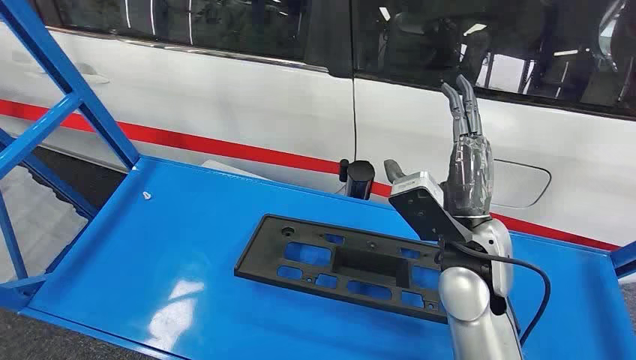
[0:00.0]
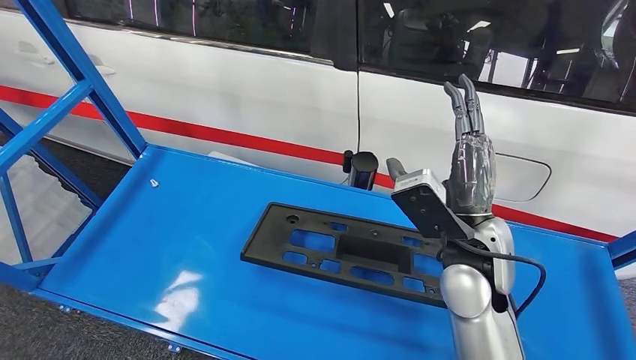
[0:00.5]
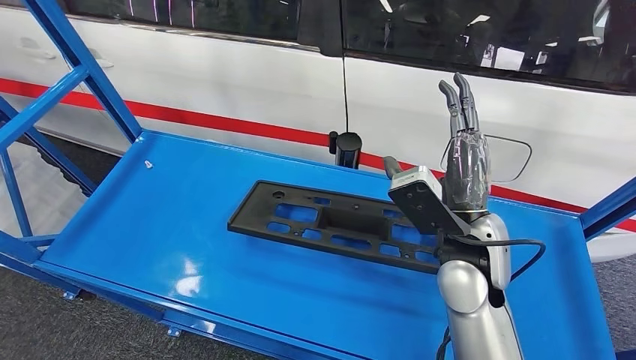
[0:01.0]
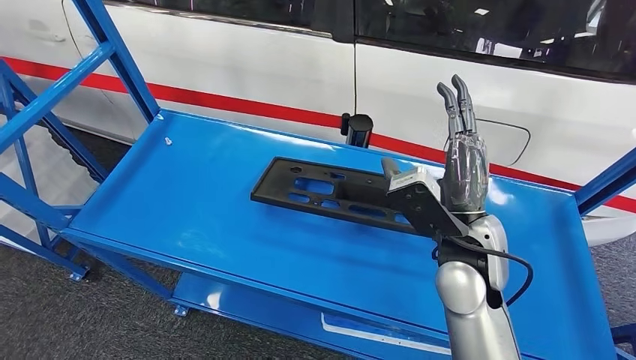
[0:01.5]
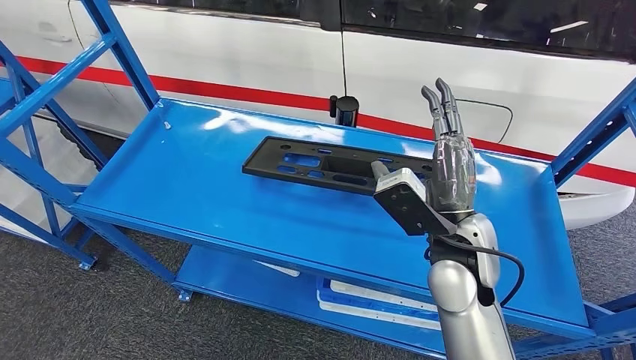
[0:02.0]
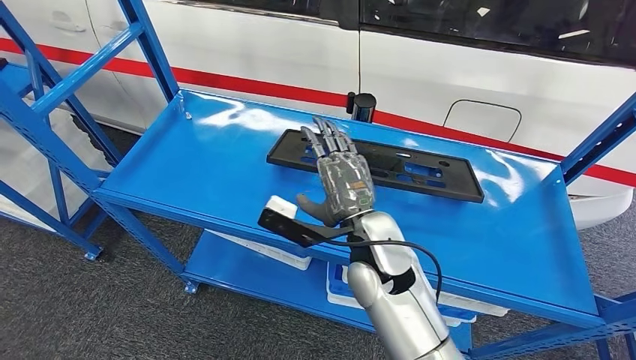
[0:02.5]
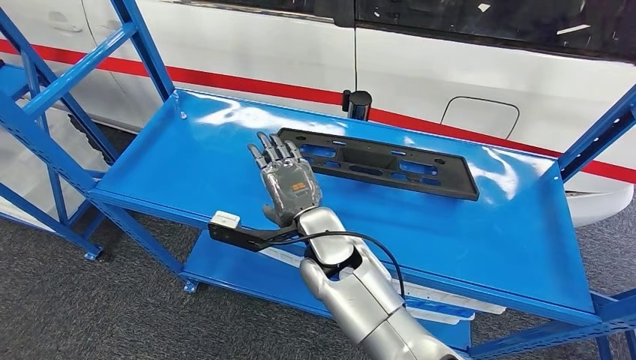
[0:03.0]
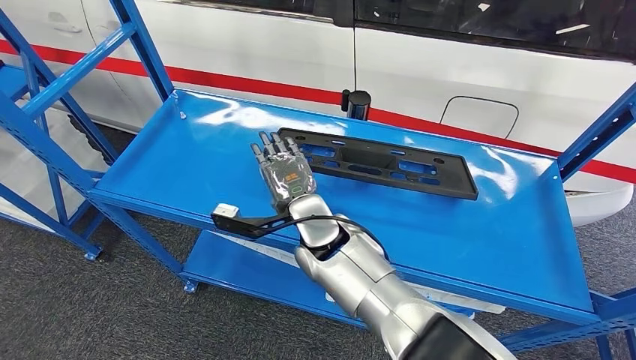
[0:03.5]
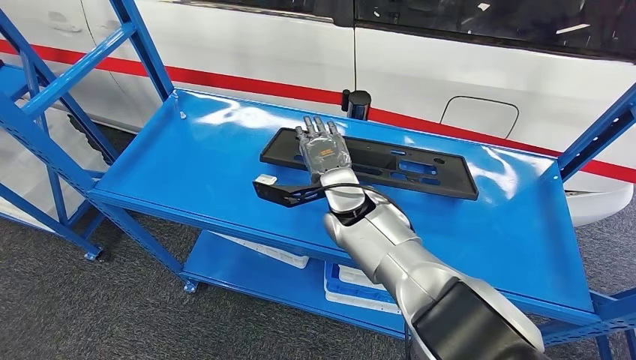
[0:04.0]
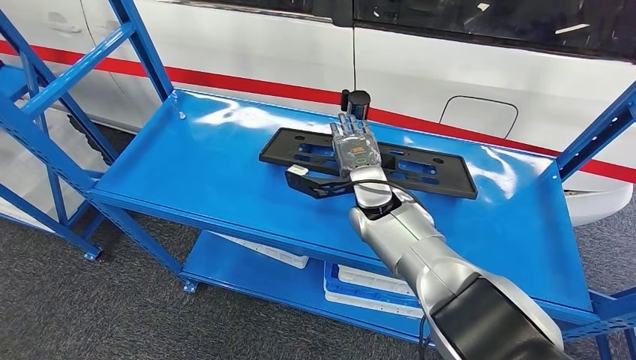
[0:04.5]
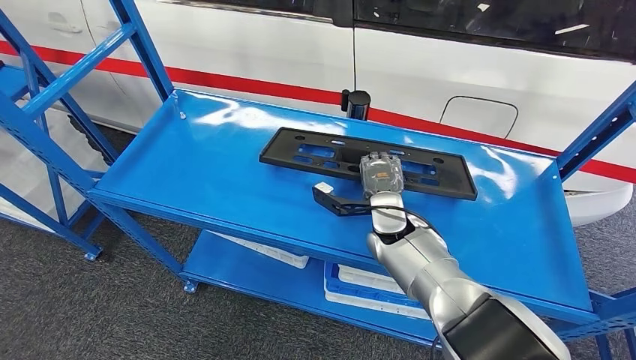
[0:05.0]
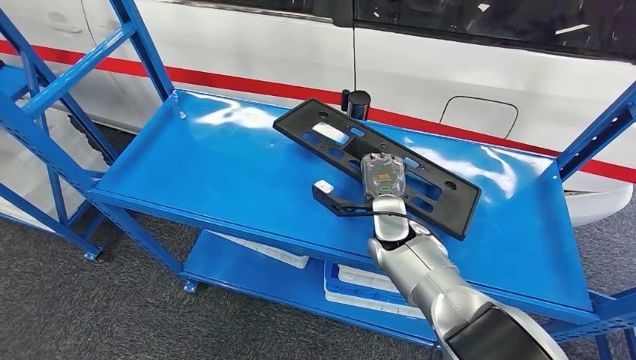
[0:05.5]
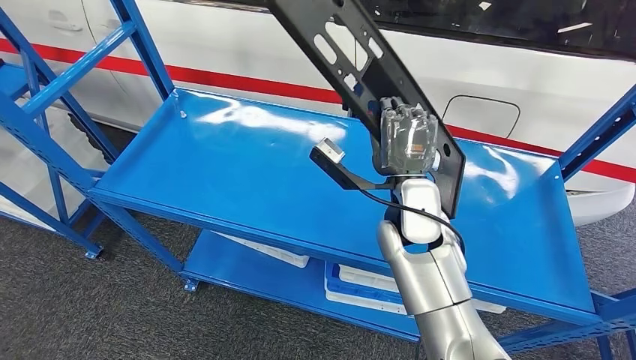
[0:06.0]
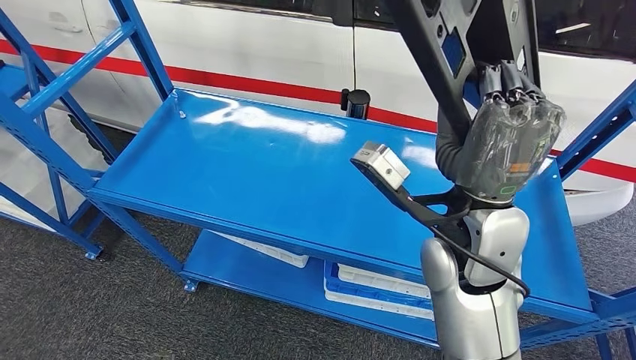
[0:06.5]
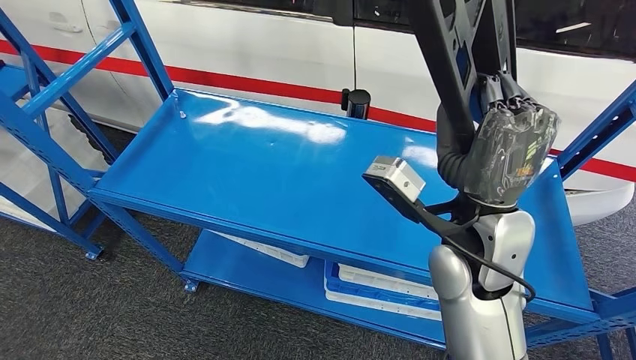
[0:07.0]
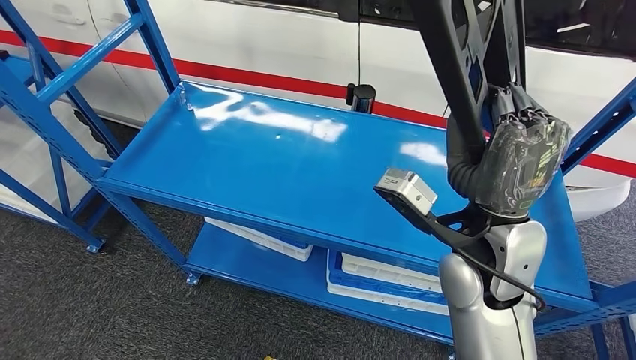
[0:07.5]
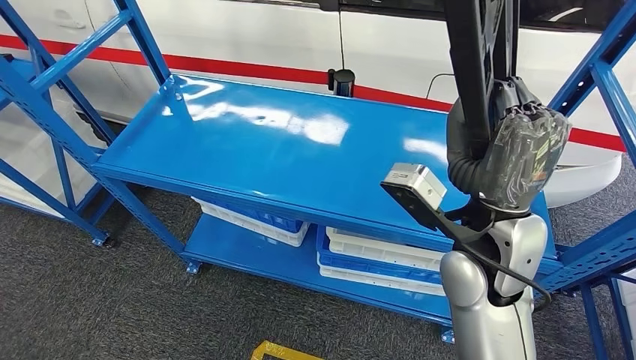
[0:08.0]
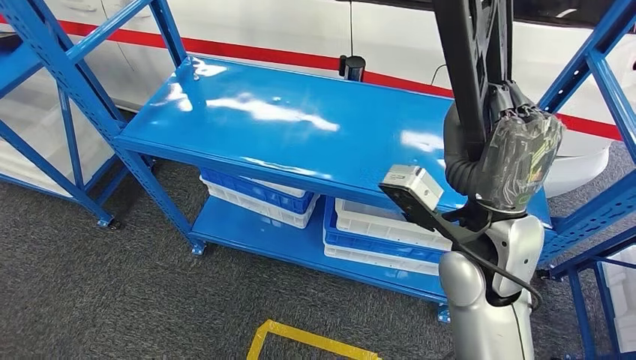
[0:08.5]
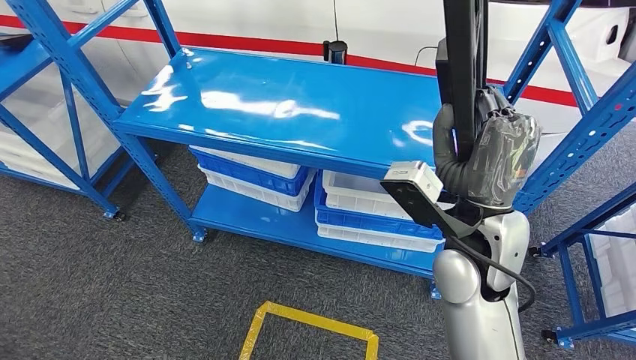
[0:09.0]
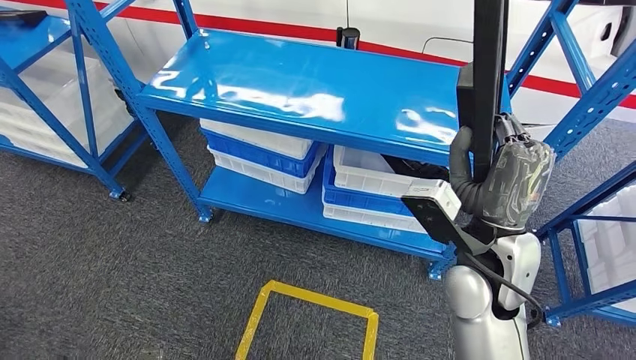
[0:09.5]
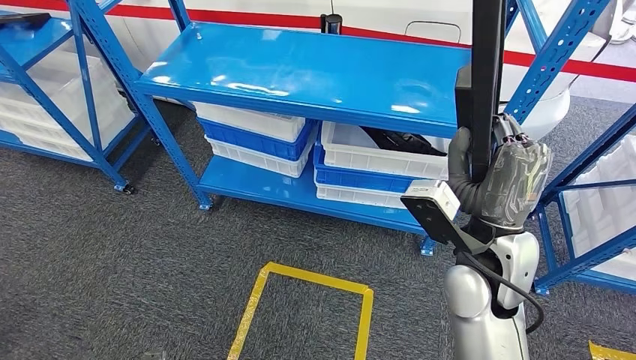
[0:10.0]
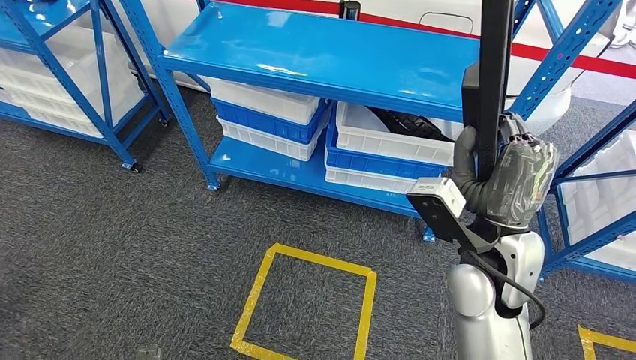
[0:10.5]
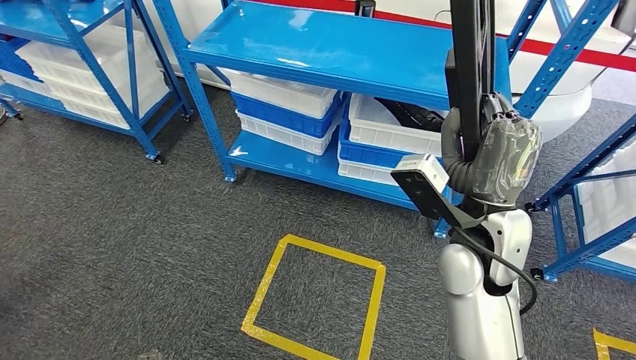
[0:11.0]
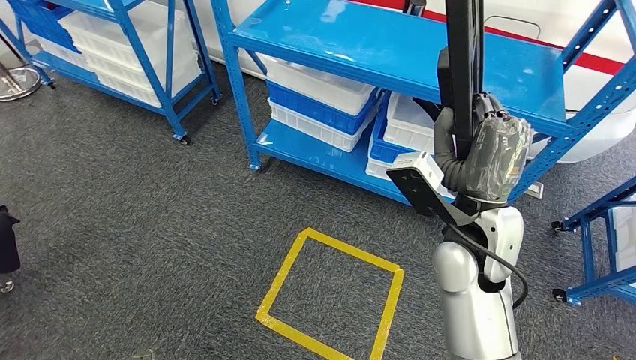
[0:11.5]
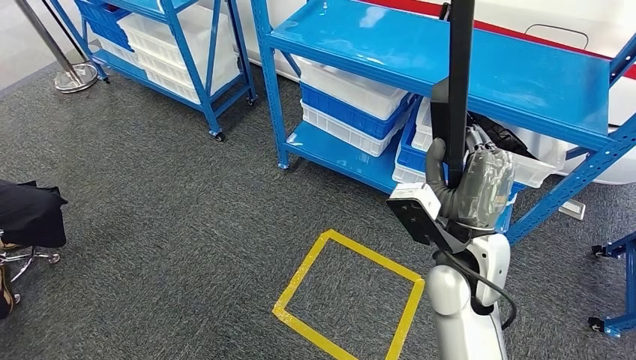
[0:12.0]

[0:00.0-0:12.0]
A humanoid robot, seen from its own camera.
Step, 0:00.0 to 0:08.0: Pick up the large parts from the shelf.

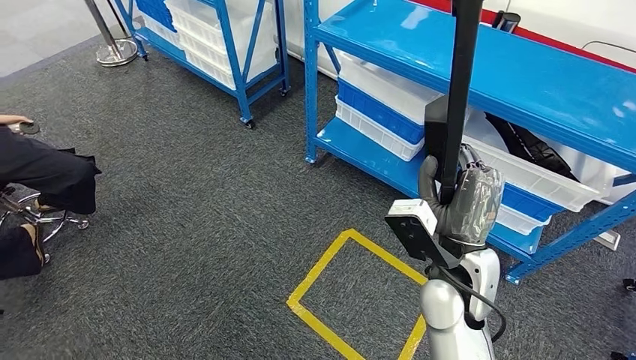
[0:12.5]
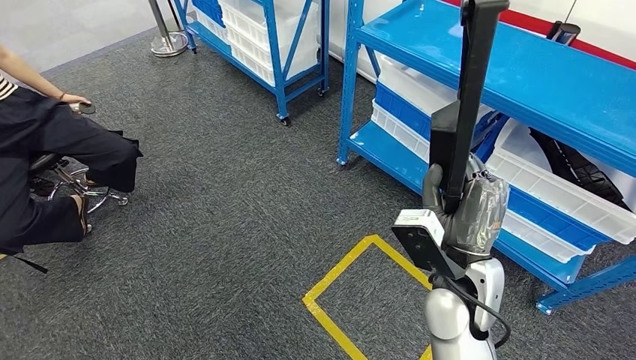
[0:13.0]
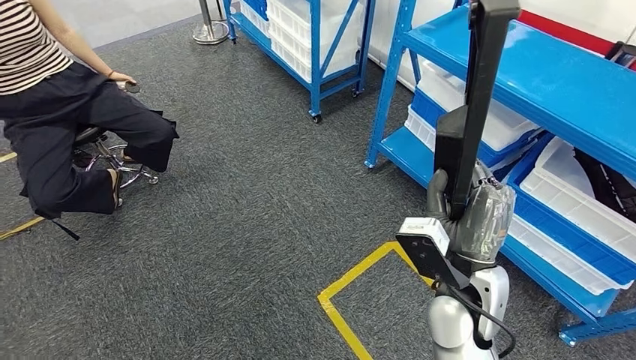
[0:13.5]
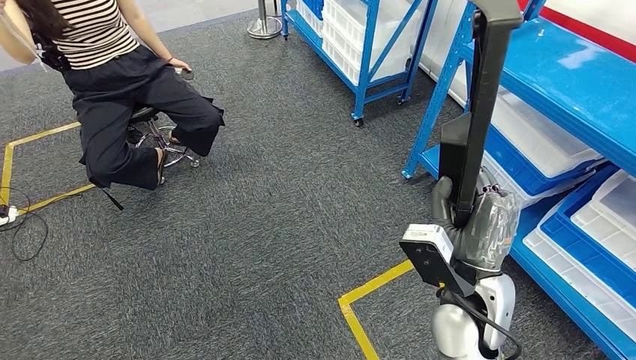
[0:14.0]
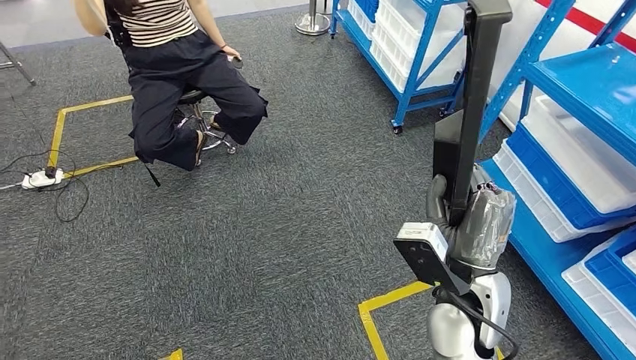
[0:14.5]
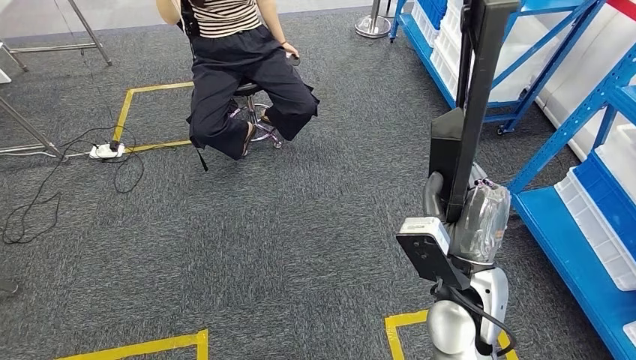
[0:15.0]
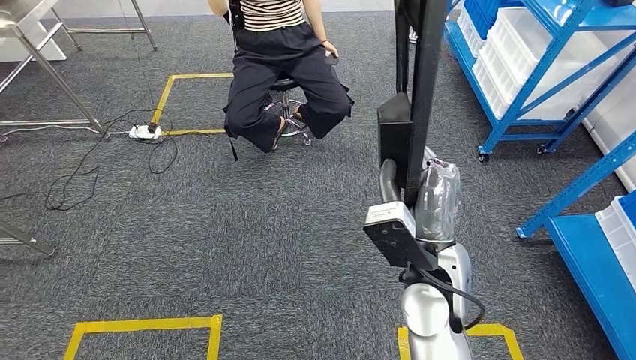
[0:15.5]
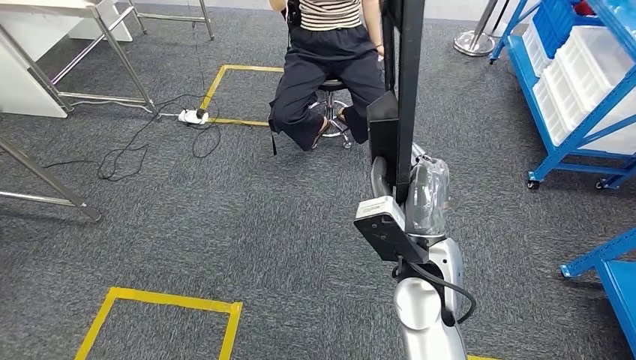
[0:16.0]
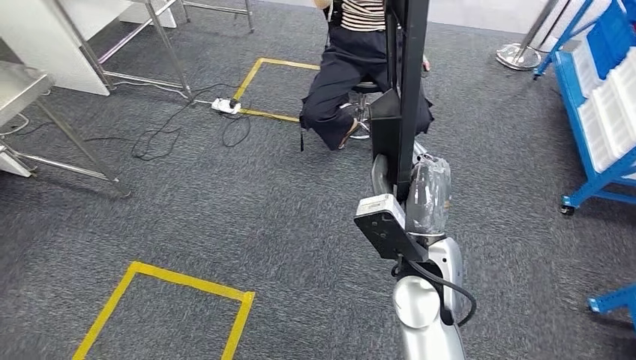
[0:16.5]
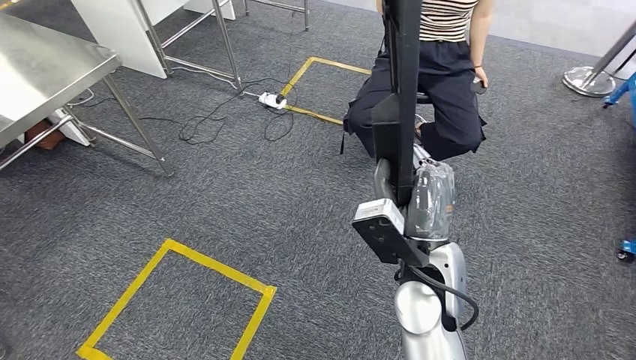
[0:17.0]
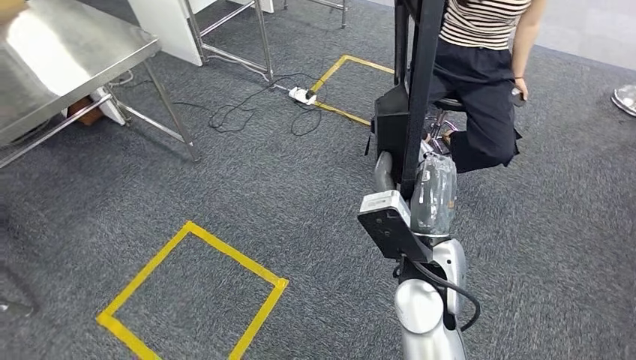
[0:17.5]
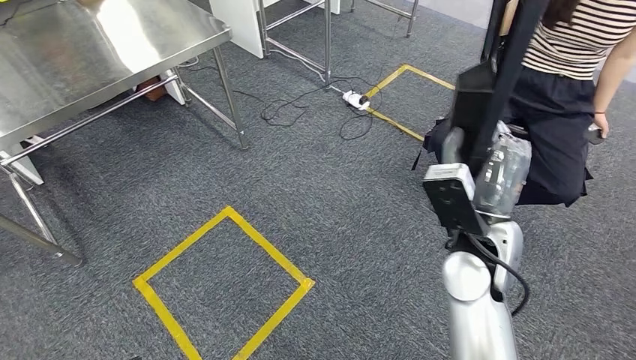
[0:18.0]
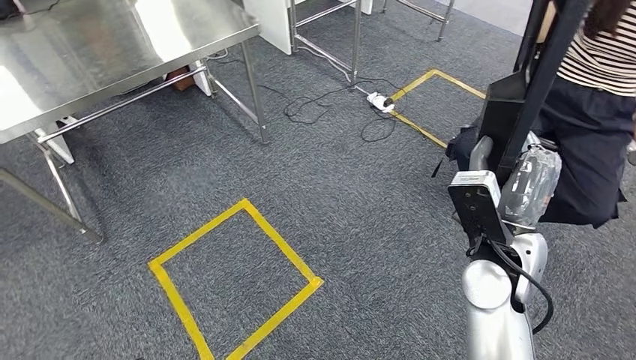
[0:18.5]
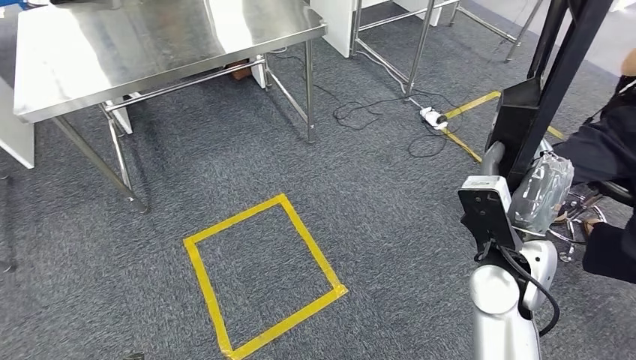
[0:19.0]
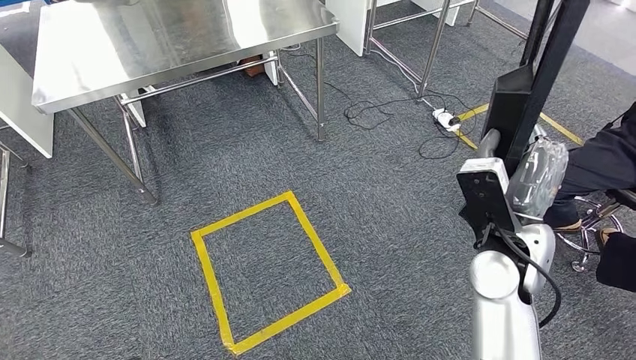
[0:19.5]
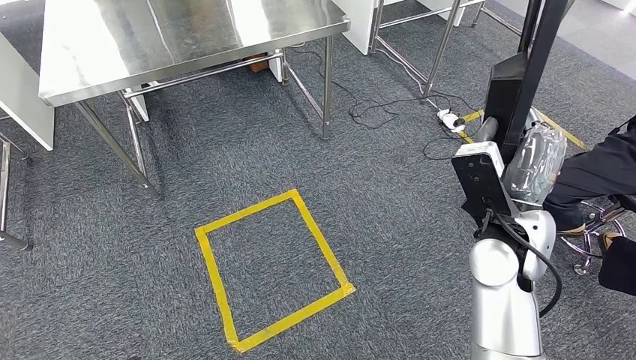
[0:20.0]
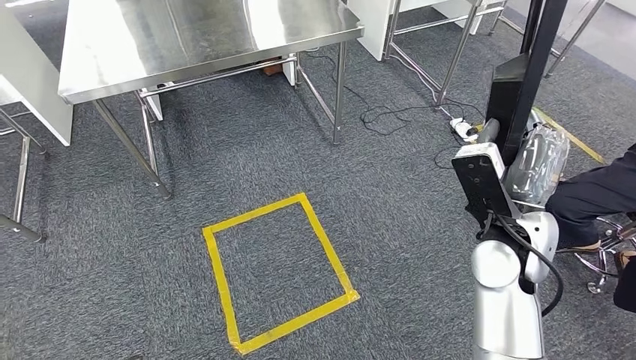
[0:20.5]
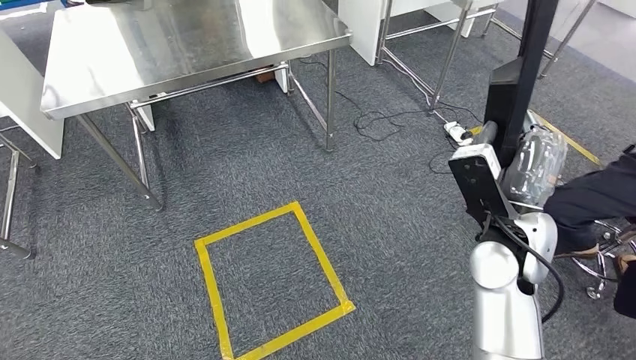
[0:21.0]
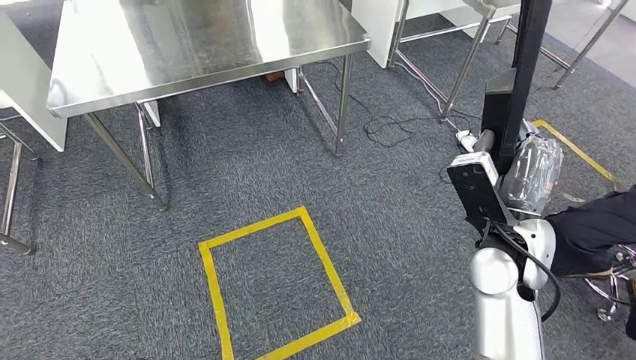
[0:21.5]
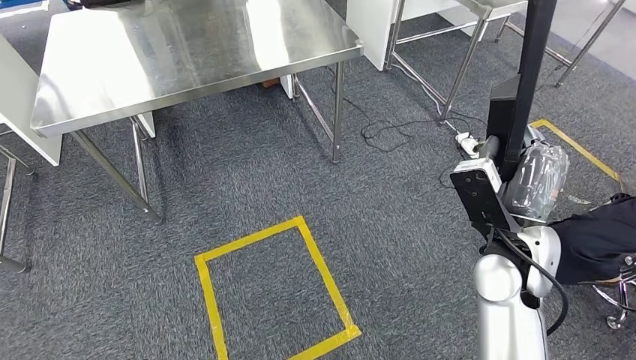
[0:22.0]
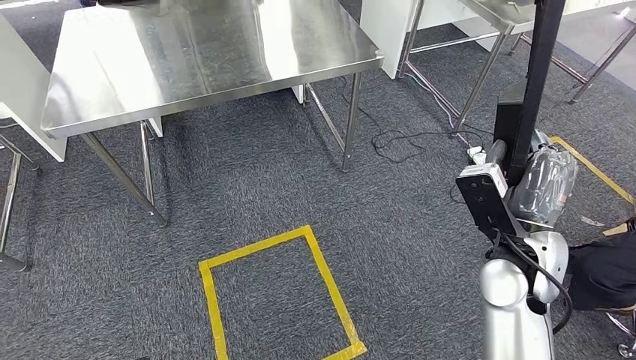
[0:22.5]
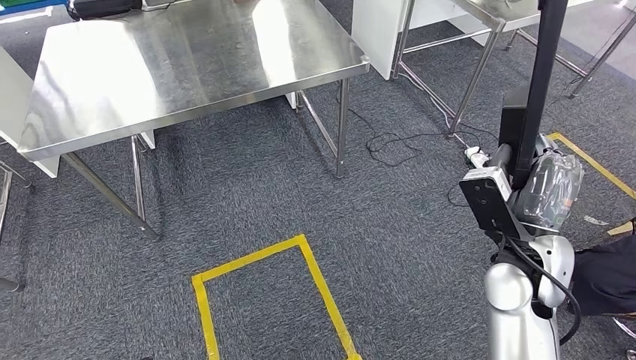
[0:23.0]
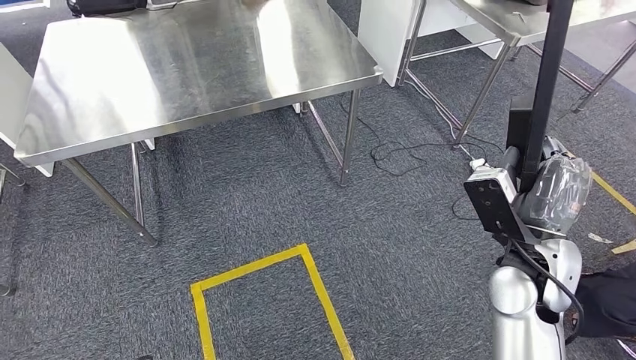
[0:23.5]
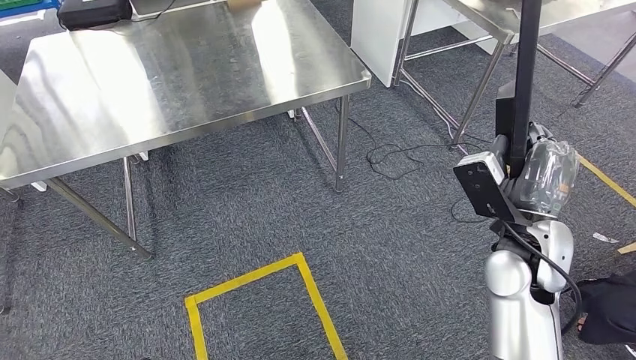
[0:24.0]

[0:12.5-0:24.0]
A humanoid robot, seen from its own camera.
Step, 0:12.5 to 0:22.0: Move the large parts to the workbench.
